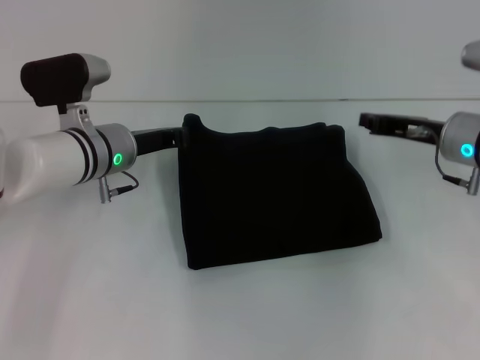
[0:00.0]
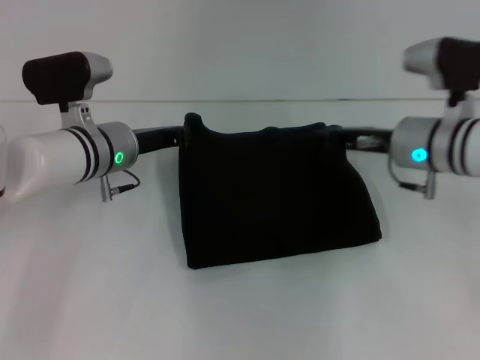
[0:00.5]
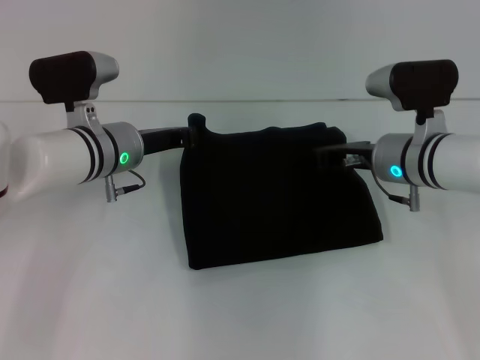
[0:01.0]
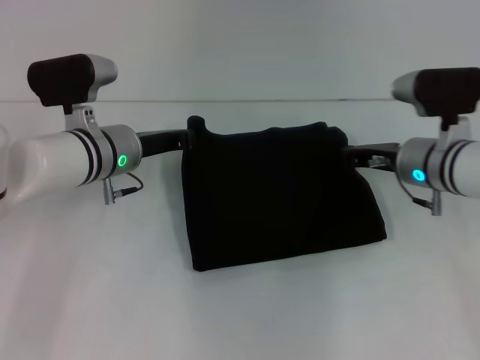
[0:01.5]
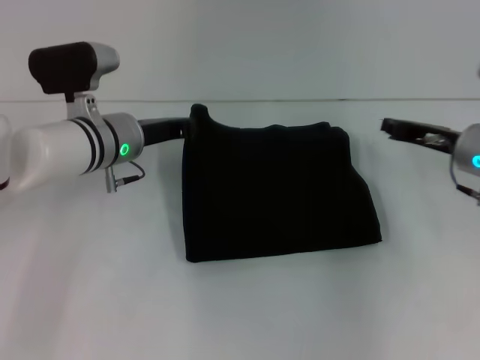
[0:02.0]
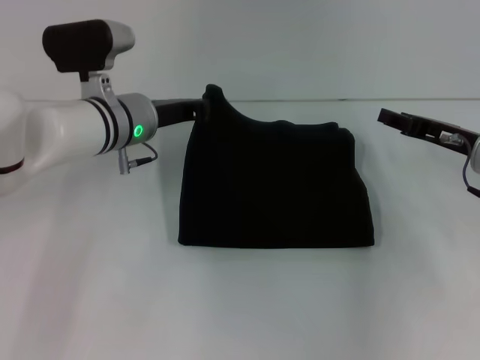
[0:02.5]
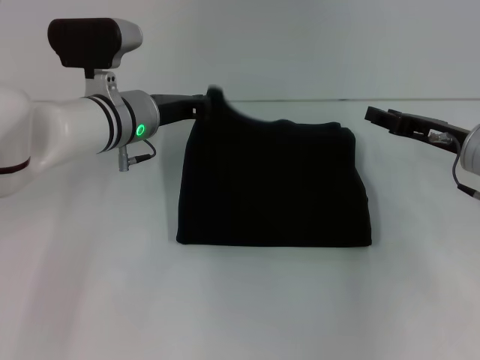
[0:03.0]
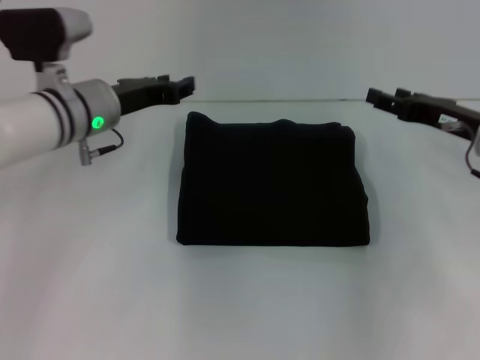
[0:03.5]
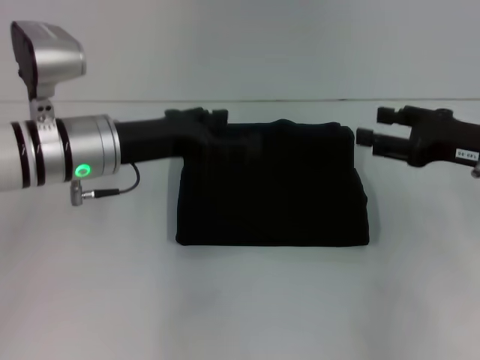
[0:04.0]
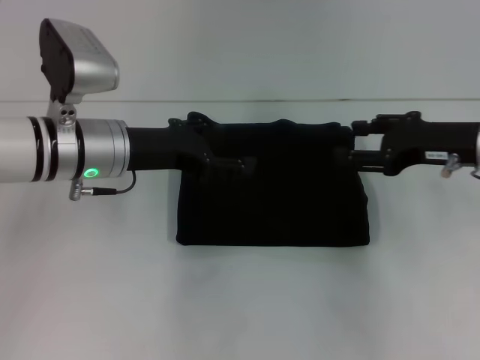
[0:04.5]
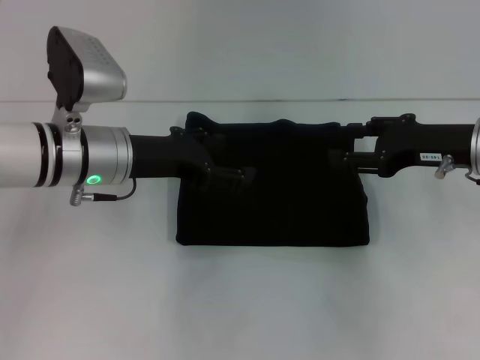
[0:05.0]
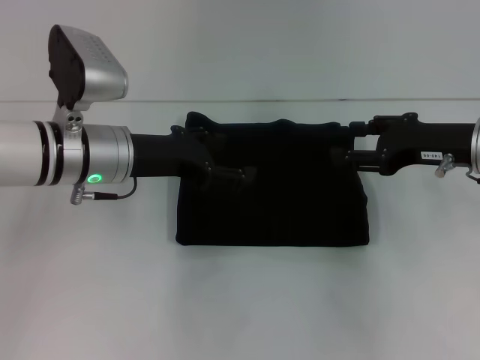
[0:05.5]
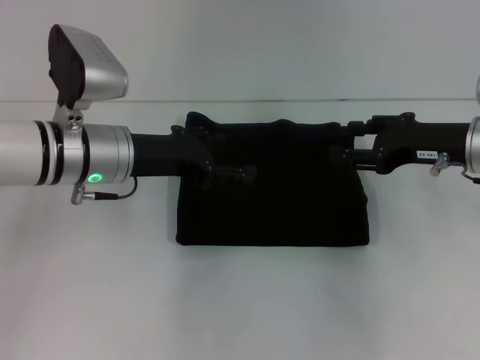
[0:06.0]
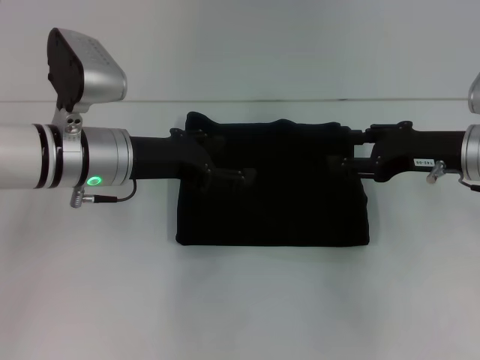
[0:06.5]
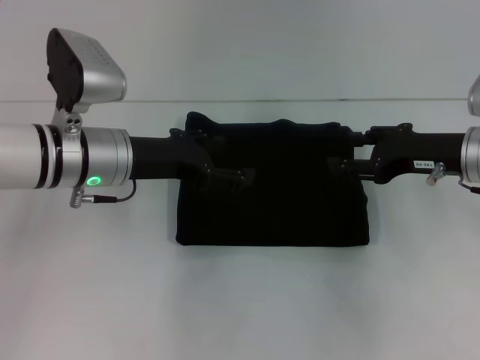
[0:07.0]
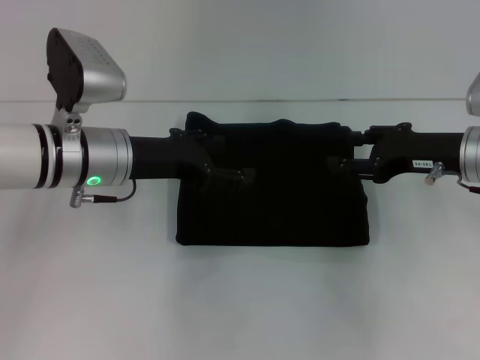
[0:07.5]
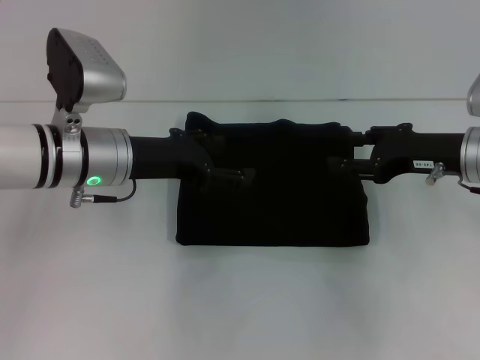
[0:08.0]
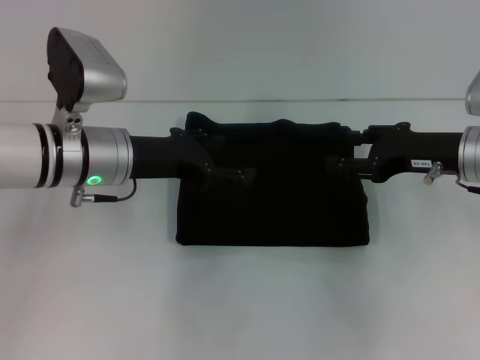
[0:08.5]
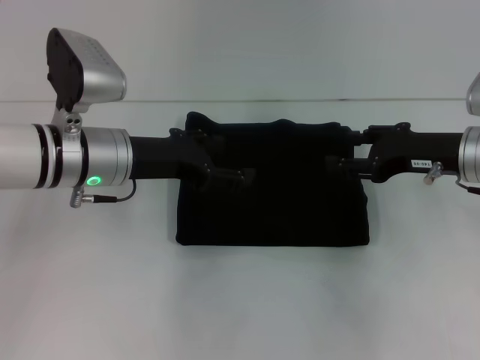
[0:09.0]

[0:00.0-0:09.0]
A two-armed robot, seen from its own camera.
0:00.0 to 0:02.0: The right gripper travels to the left and back again, roughly 5 cm each way.
0:02.0 to 0:04.5: The right gripper is displaced upward by roughly 5 cm, and opens its fingers, while the left gripper ends up about 5 cm from where it was, and opens.
0:04.5 to 0:07.0: The grippers make only small movements.
0:07.0 to 0:09.0: The two grippers keep their place.

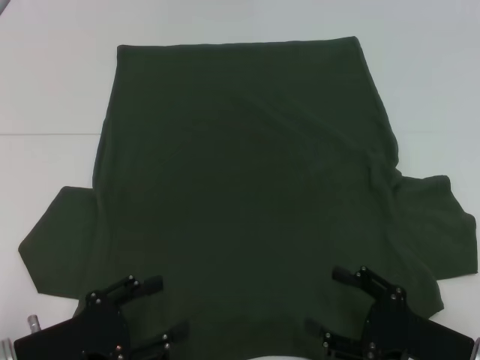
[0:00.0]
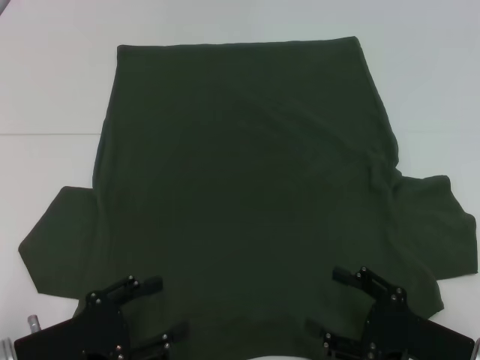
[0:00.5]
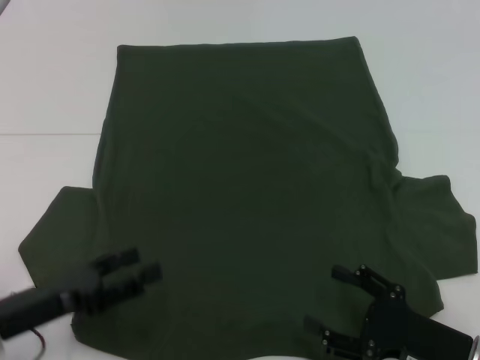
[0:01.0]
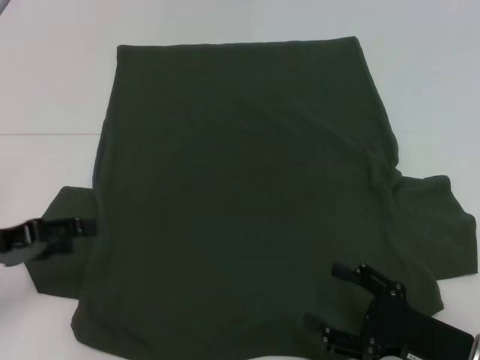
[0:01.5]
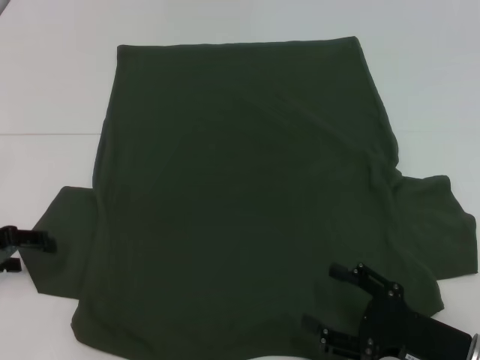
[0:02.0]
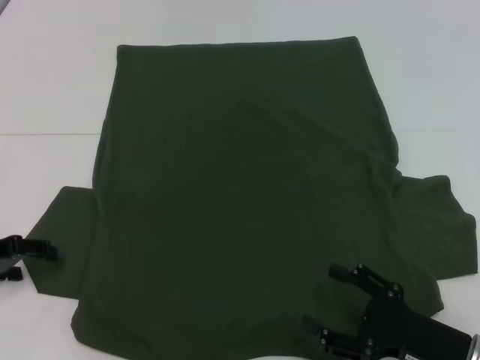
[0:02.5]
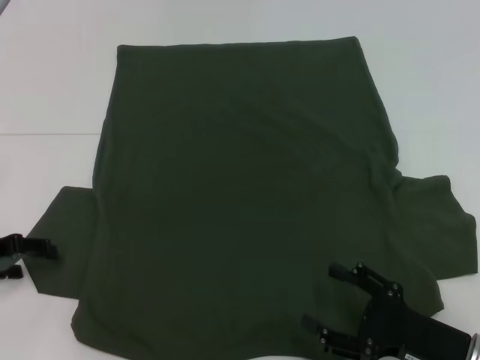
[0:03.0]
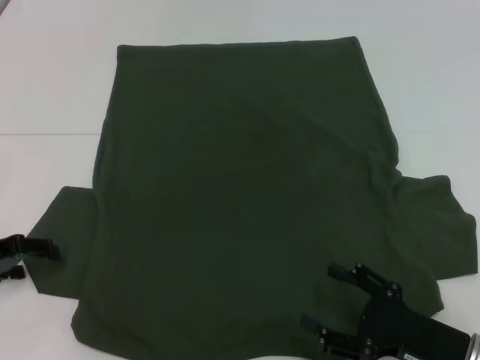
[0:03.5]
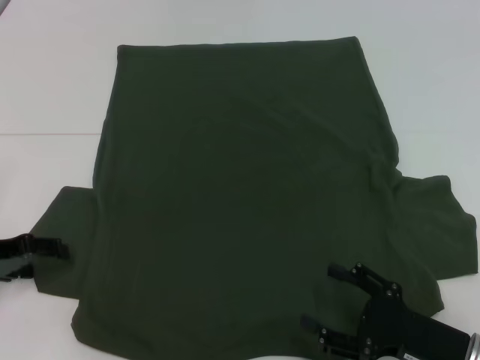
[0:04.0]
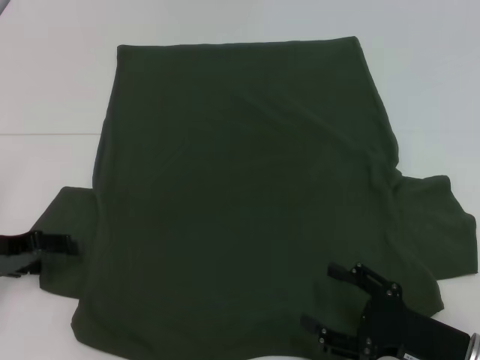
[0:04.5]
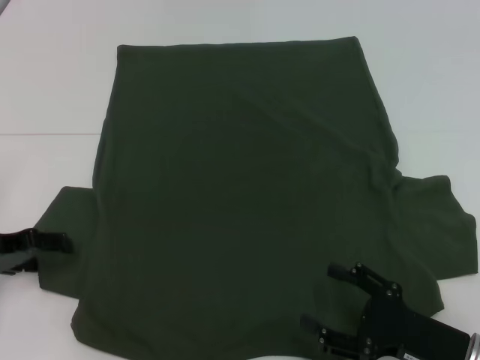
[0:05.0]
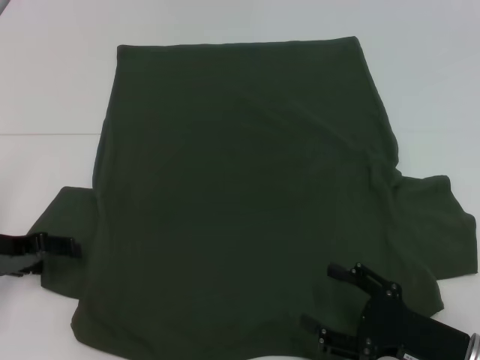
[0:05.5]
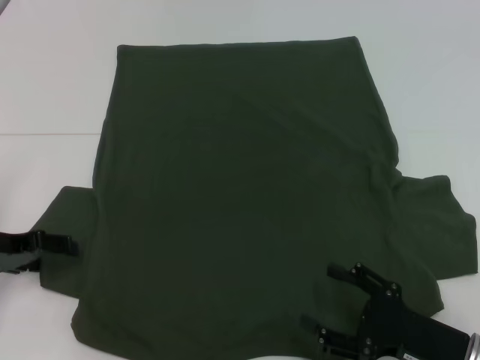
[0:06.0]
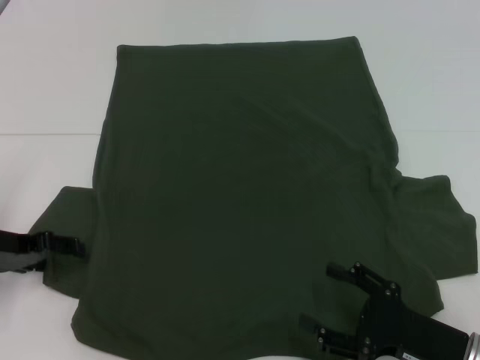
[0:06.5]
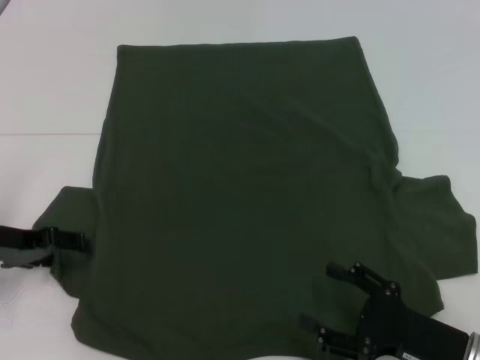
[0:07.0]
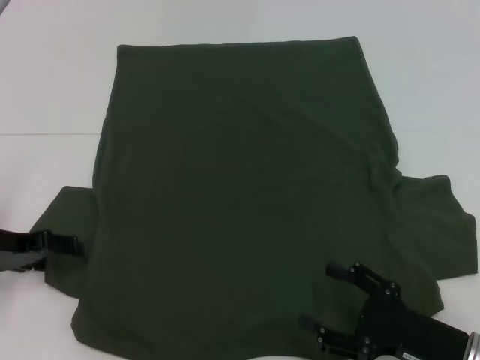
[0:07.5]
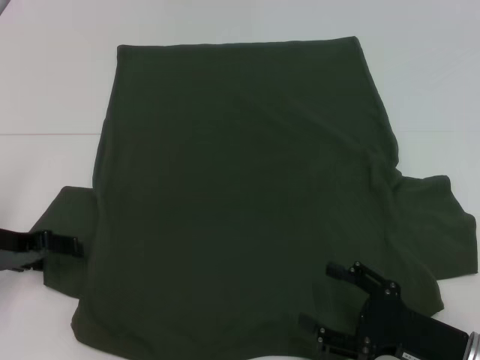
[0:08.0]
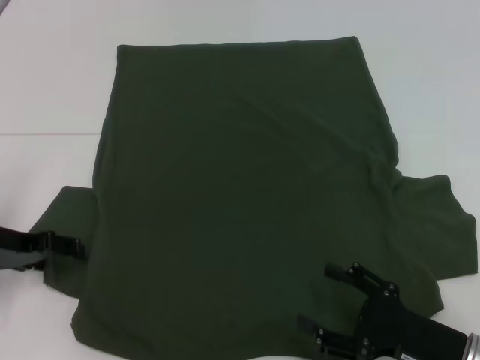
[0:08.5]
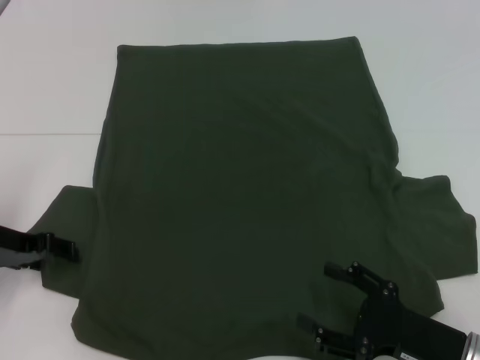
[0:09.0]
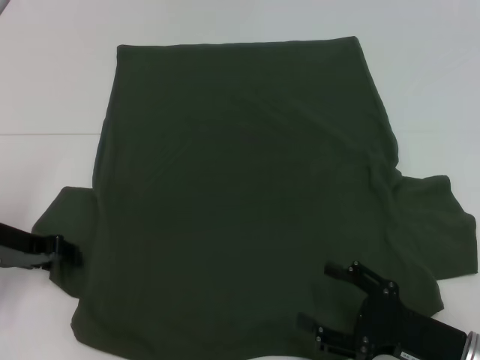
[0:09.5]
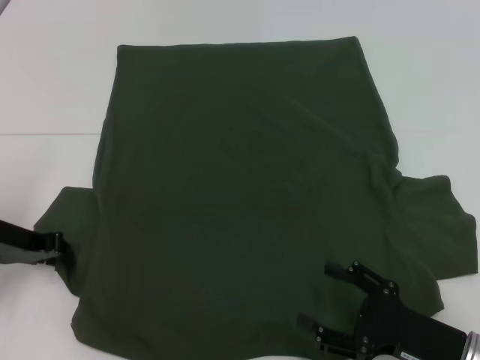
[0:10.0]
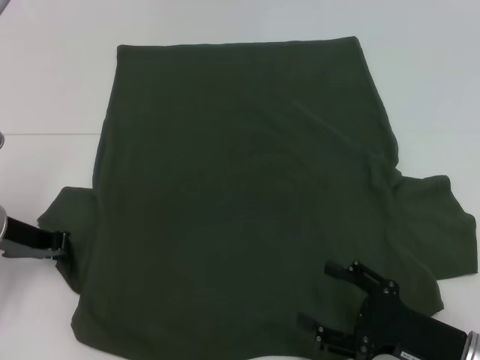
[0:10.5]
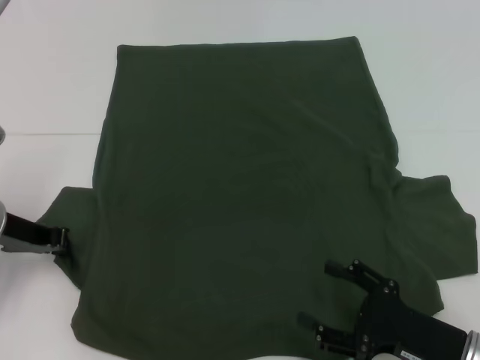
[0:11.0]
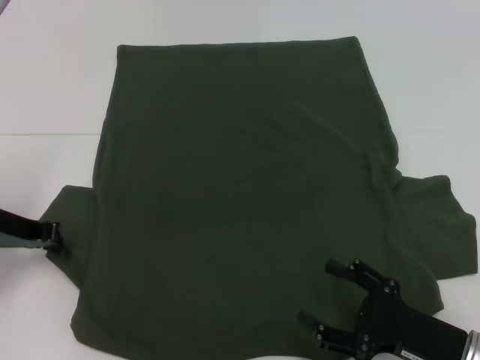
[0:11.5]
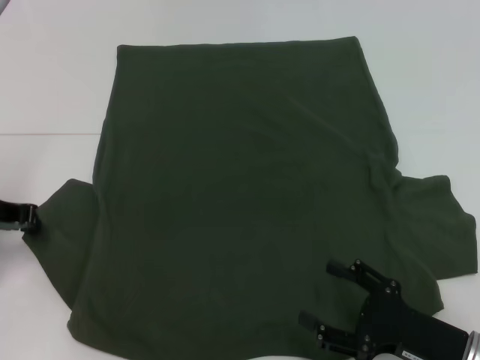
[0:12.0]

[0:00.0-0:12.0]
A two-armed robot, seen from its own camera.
0:00.0 to 0:02.0: The left gripper travels forward, to the left and upward by some 15 cm.
0:02.0 to 0:04.0: The grippers move only a little.
0:06.0 to 0:08.0: Both grippers stay put.
0:08.0 to 0:10.0: The left gripper closes up.
0:10.0 to 0:12.0: There are only small adjustments of the grippers.

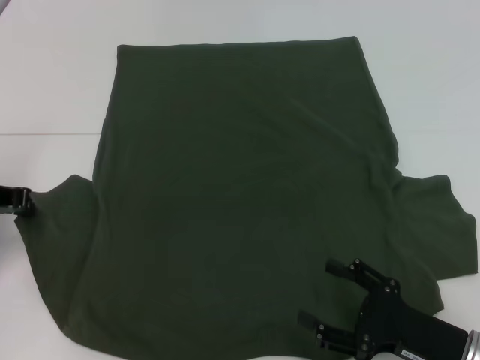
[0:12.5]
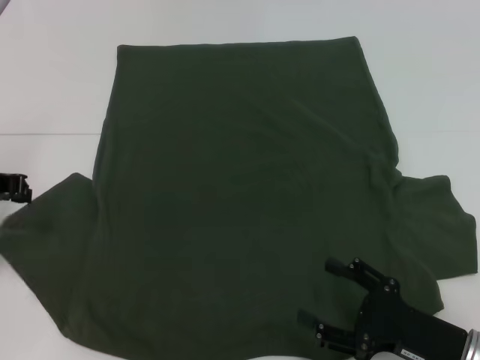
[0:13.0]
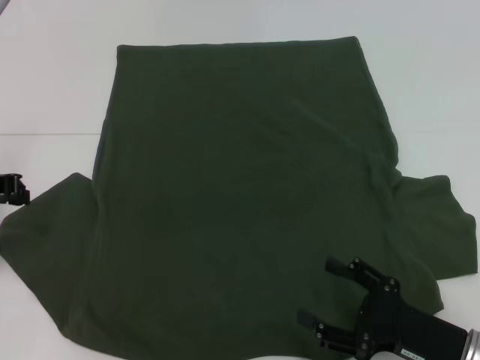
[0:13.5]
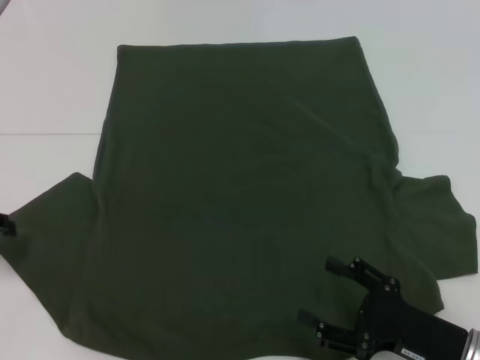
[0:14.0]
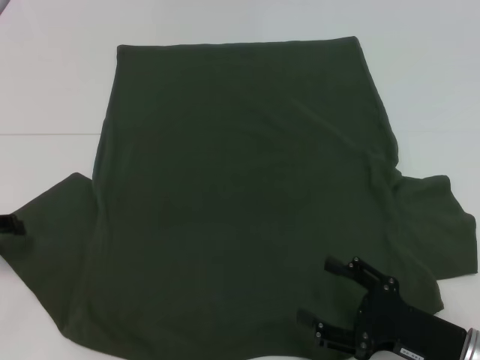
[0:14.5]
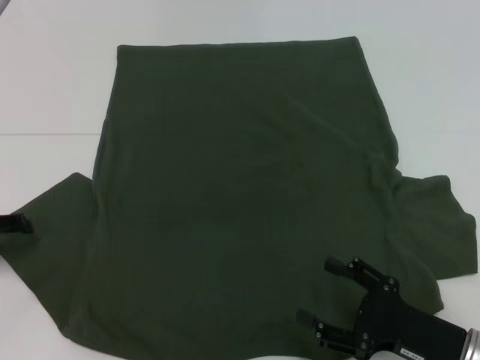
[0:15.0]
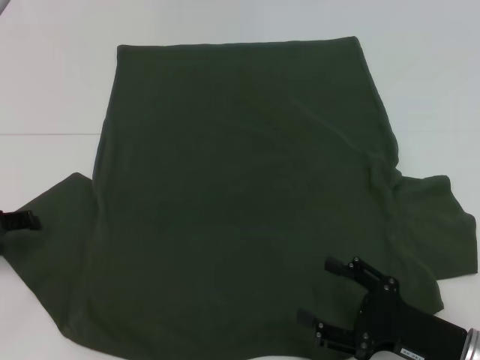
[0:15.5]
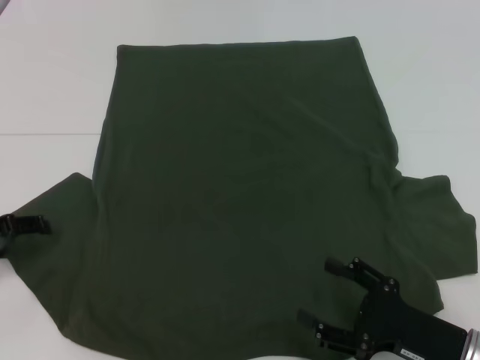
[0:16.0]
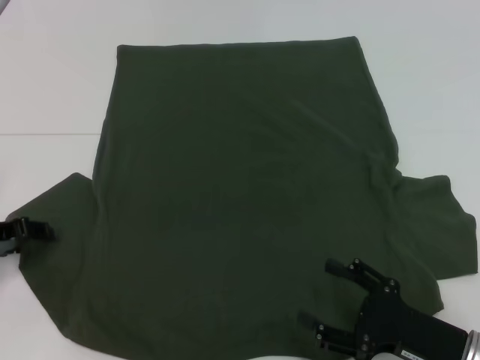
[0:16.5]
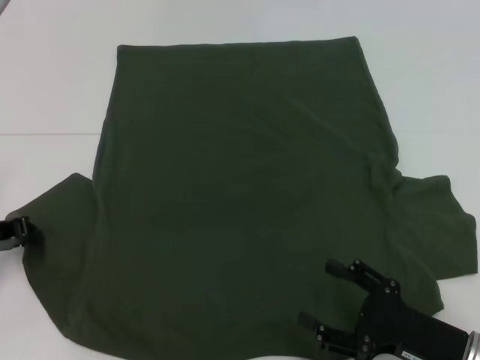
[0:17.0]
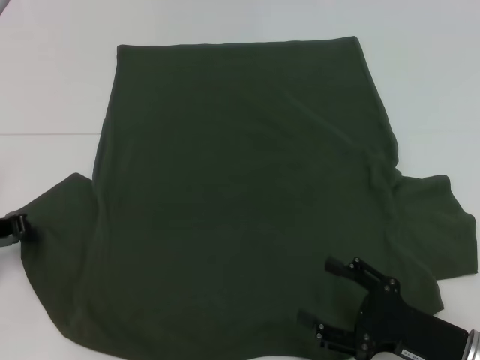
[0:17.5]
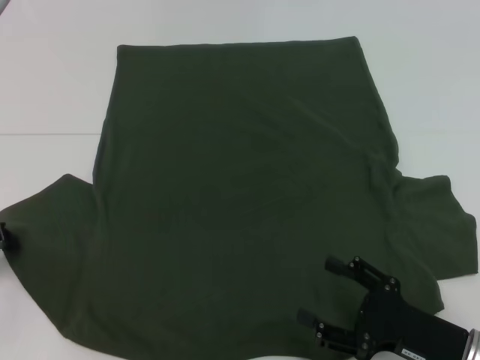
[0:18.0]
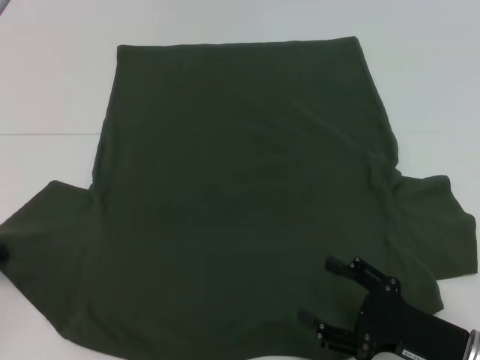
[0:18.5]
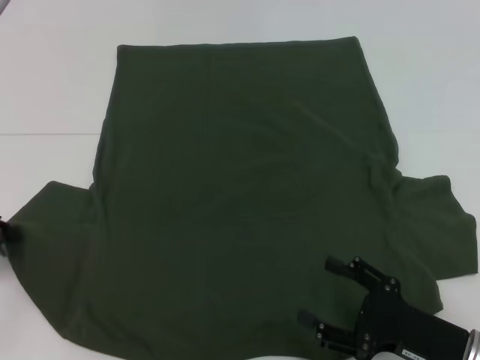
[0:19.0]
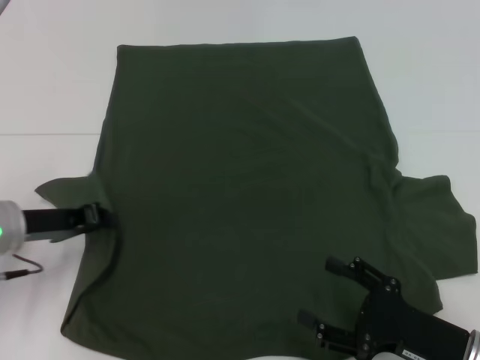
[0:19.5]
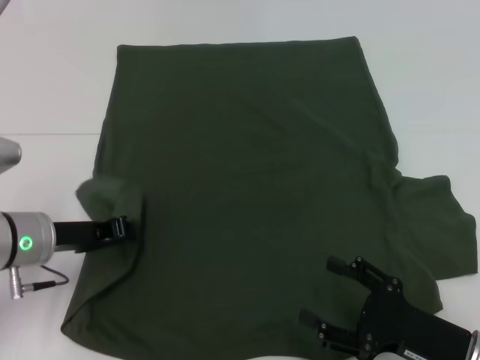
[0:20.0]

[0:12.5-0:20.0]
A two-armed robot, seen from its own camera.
0:12.5 to 0:14.5: The left gripper heads to the left and backward, covering roughly 10 cm, and opens.
0:14.5 to 0:16.5: The grippers make only small movements.
0:16.5 to 0:18.0: The left gripper closes up.
0:18.0 to 0:20.0: The left gripper goes approximately 10 cm to the right.
